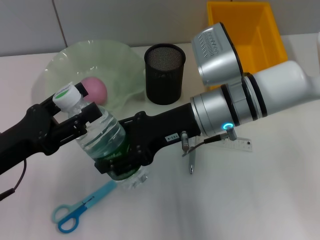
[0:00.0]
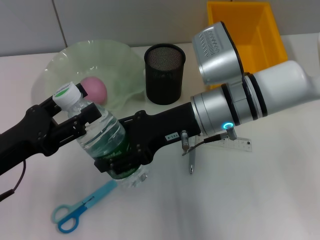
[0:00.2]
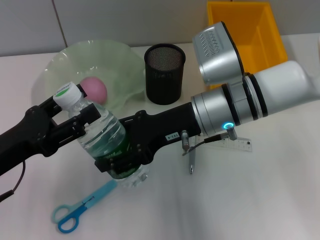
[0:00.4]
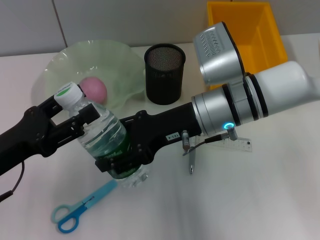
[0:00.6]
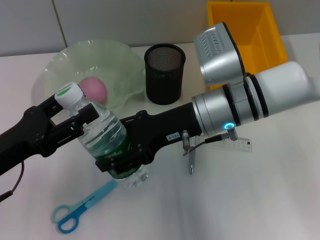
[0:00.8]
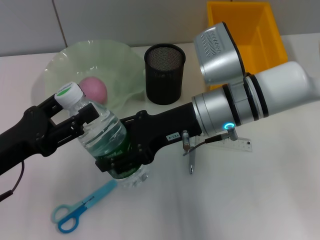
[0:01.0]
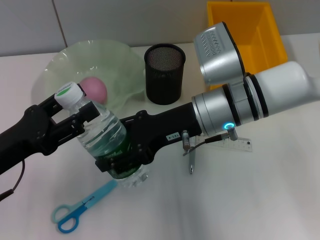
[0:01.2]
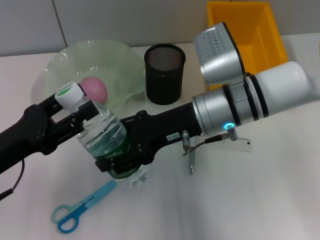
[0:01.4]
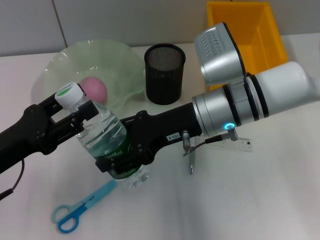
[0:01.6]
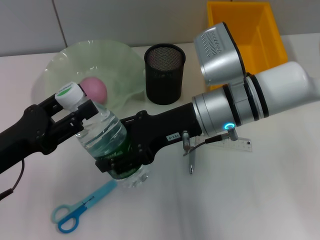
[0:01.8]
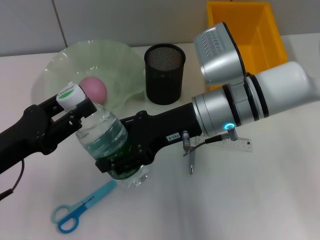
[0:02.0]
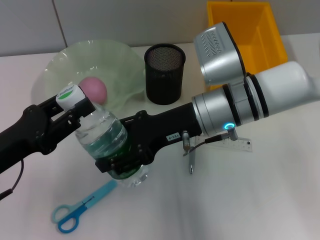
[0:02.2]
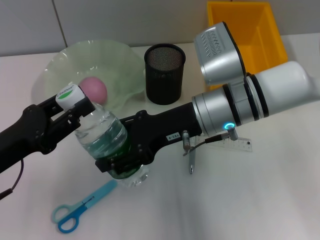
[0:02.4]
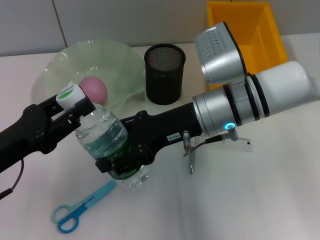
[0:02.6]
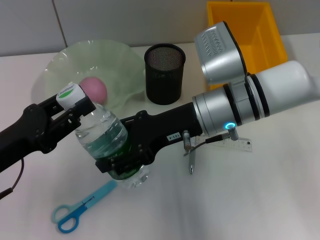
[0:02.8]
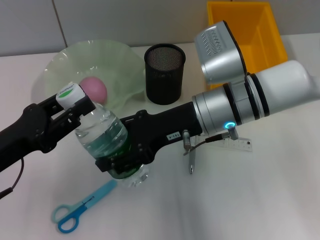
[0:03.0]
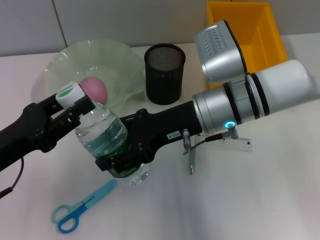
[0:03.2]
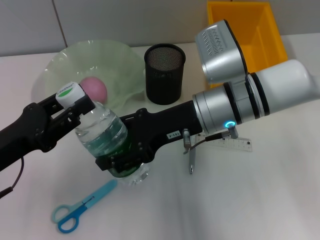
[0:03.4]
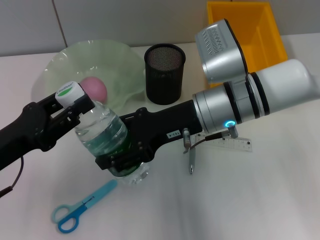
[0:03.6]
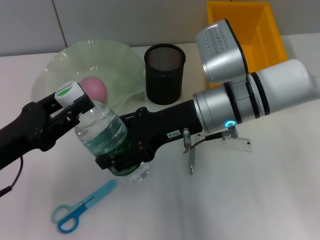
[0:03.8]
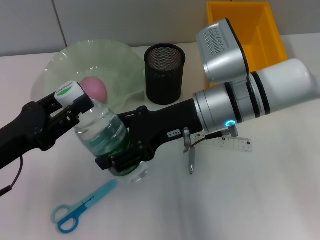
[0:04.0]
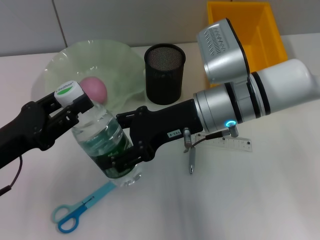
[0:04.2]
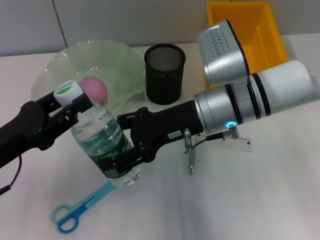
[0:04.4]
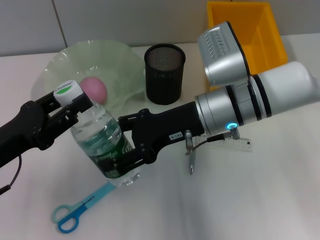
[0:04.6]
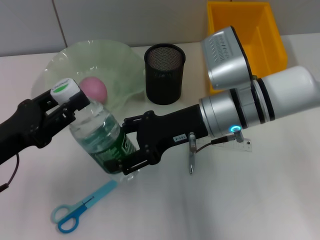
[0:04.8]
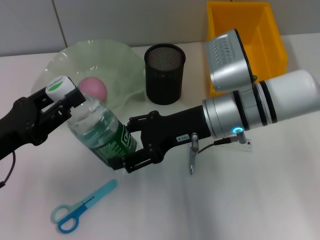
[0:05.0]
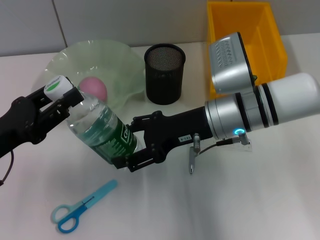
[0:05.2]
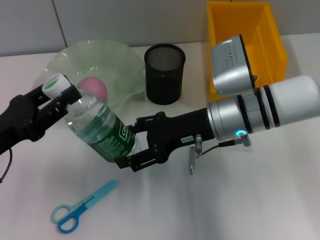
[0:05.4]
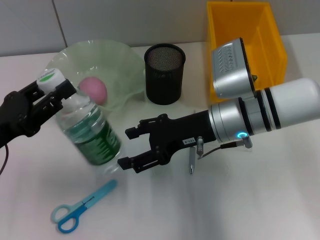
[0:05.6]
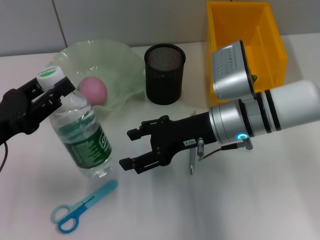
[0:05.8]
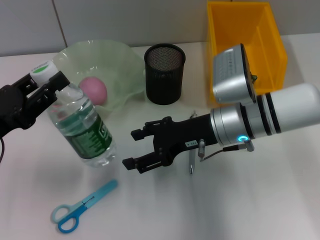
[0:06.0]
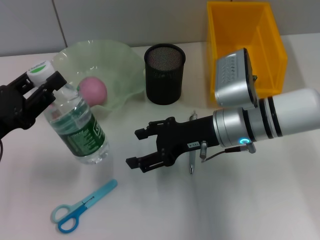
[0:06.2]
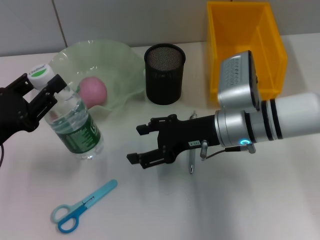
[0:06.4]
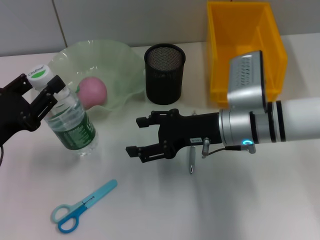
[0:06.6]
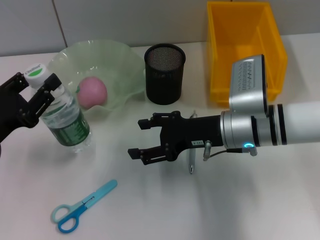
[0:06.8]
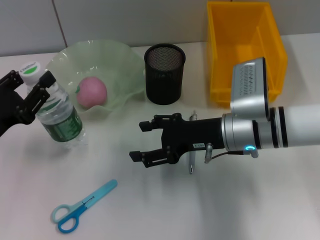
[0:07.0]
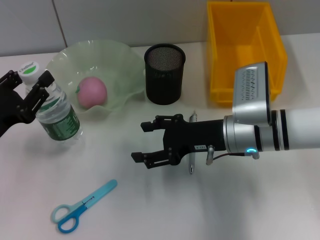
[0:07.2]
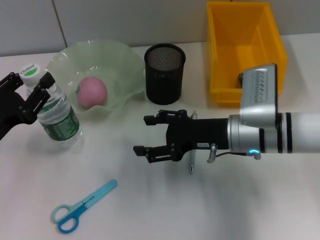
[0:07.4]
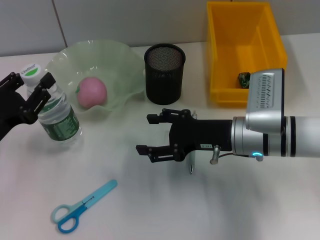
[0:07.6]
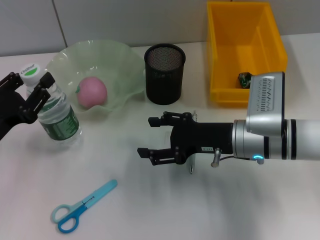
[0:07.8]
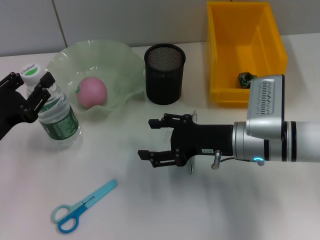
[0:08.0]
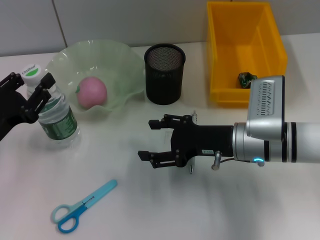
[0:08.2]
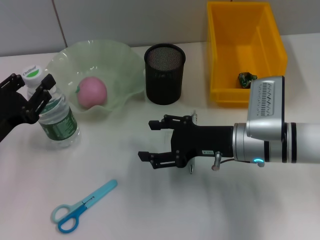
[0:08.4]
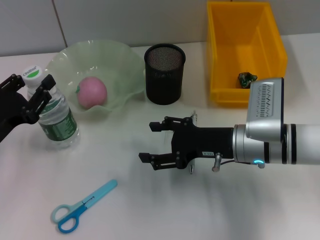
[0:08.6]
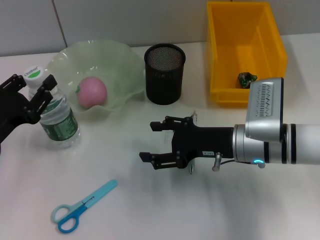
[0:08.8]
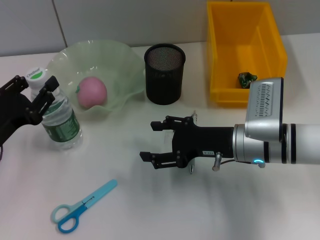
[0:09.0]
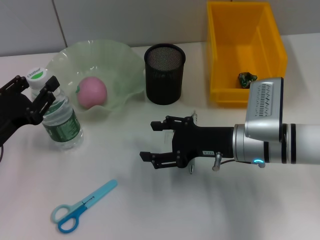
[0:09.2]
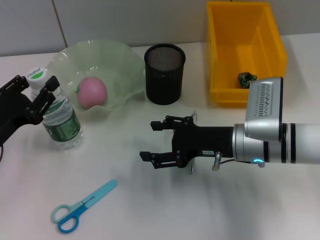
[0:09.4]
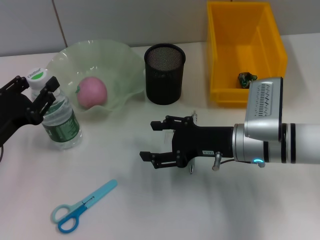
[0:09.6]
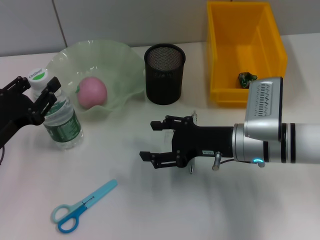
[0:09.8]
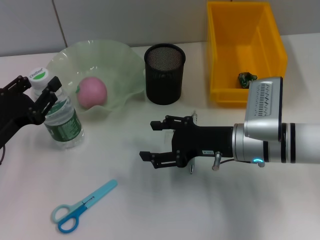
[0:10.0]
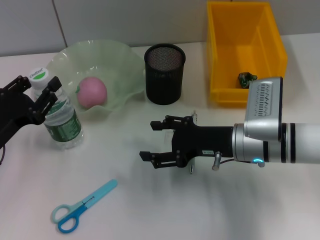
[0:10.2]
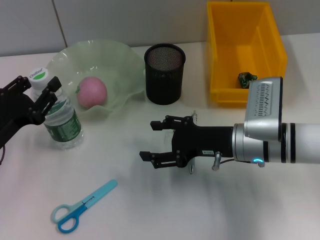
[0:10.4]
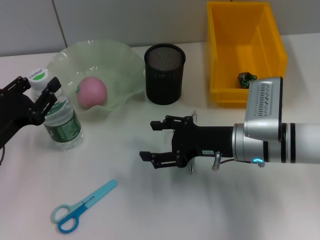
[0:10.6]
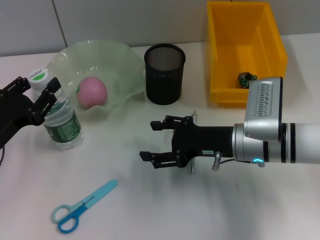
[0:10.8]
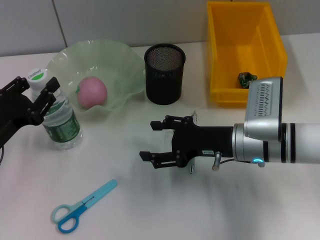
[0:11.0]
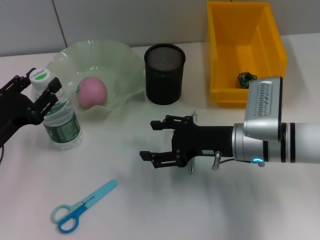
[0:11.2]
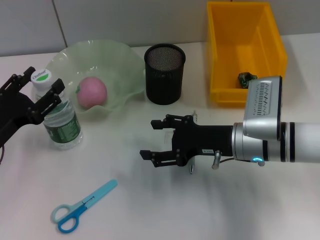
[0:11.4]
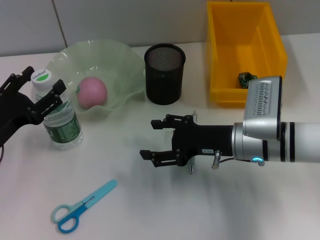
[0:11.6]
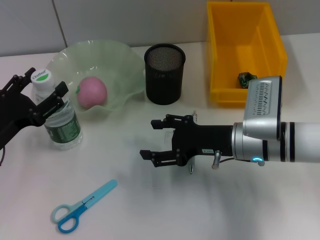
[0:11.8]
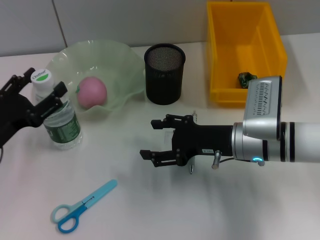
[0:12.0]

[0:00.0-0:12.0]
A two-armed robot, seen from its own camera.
Step, 0:00.0 to 0:05.8: Pass the water bottle from the right hand to the left hand.
0:00.0 to 0:01.6: Both grippers stay about where they are.
0:01.6 to 0:03.0: The left gripper closes.
0:03.0 to 0:04.4: Both grippers stay put.
0:07.6 to 0:10.4: Both grippers stay about where they are.
0:10.4 to 0:12.0: The left gripper opens up.

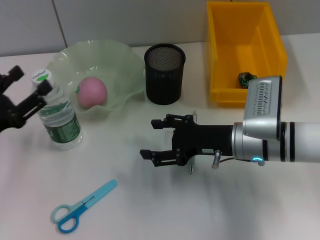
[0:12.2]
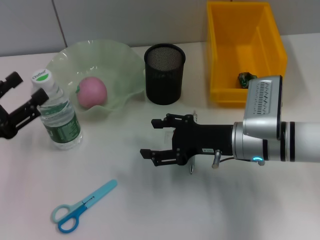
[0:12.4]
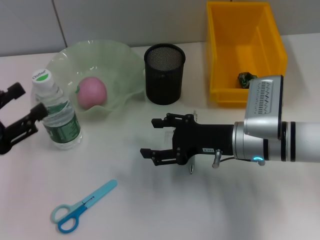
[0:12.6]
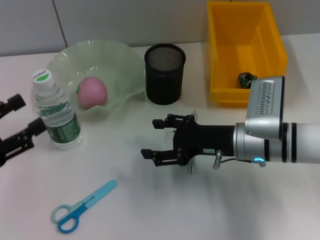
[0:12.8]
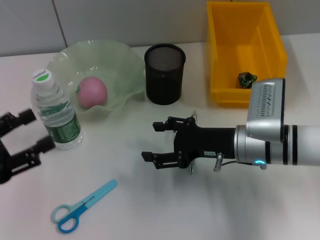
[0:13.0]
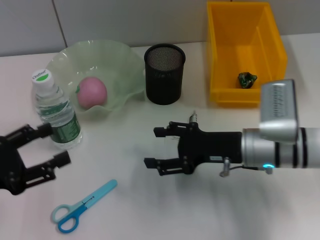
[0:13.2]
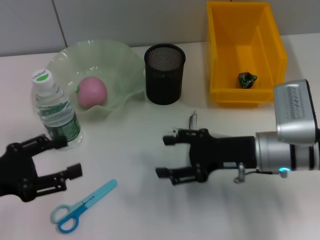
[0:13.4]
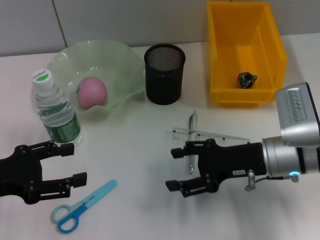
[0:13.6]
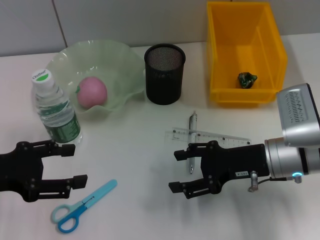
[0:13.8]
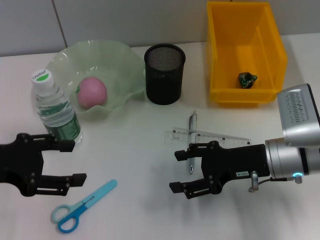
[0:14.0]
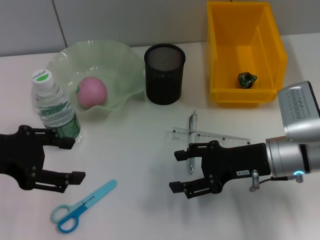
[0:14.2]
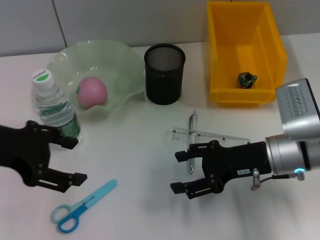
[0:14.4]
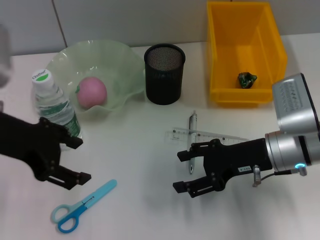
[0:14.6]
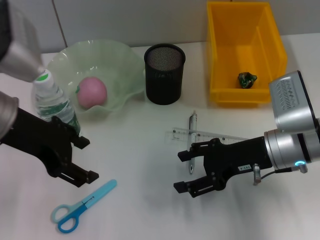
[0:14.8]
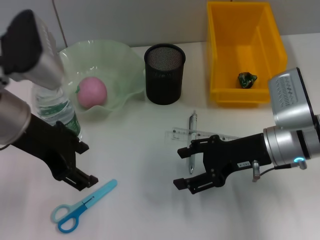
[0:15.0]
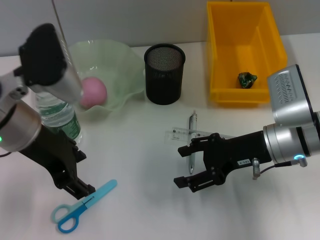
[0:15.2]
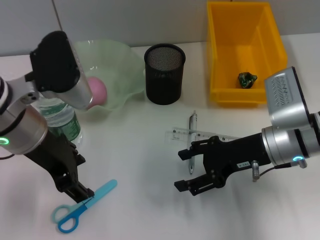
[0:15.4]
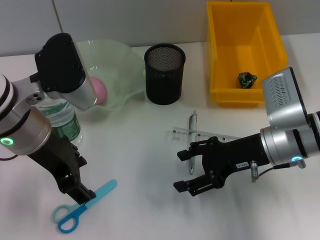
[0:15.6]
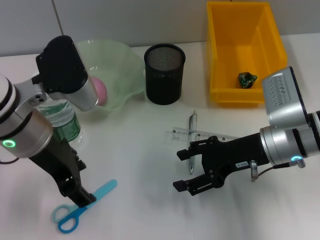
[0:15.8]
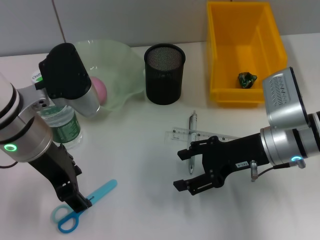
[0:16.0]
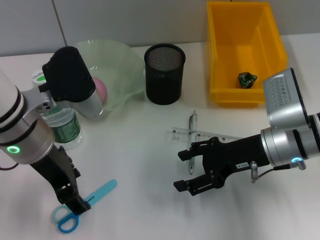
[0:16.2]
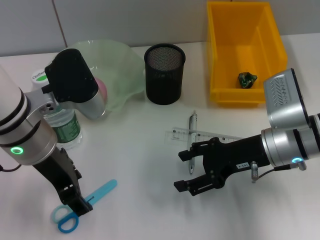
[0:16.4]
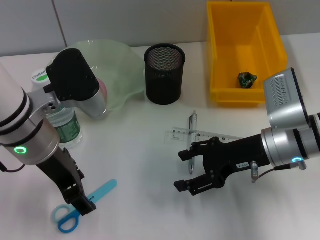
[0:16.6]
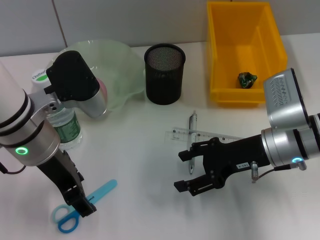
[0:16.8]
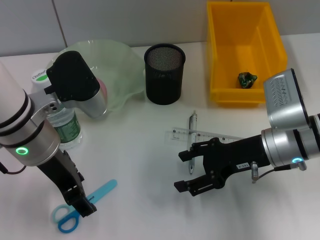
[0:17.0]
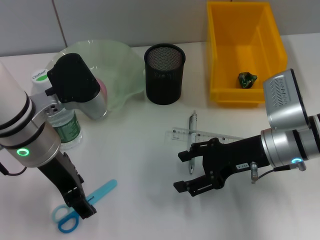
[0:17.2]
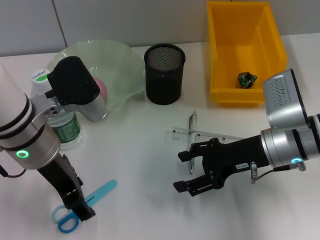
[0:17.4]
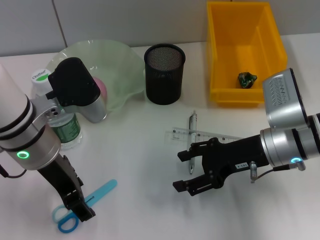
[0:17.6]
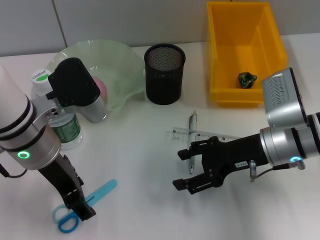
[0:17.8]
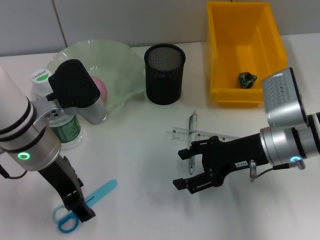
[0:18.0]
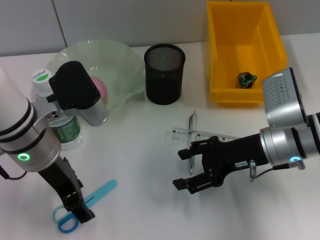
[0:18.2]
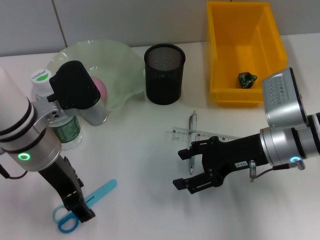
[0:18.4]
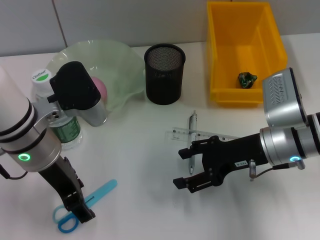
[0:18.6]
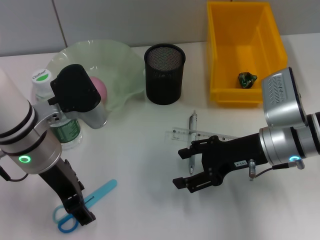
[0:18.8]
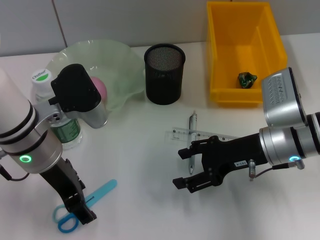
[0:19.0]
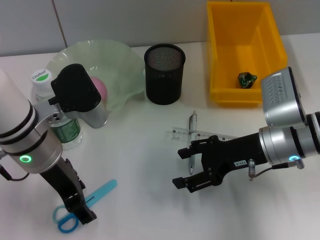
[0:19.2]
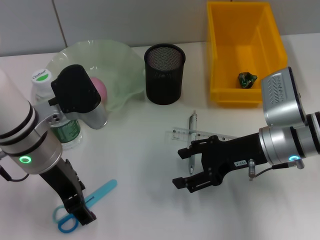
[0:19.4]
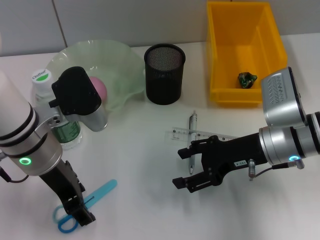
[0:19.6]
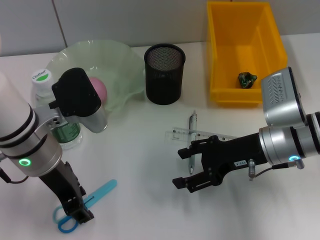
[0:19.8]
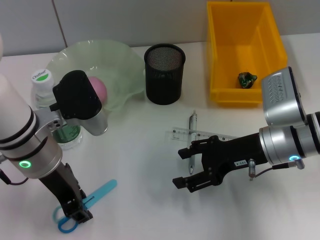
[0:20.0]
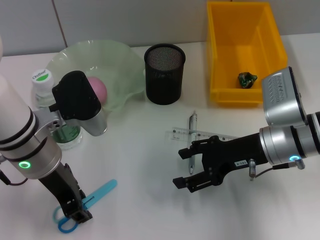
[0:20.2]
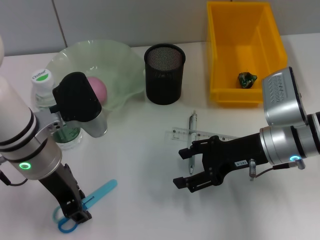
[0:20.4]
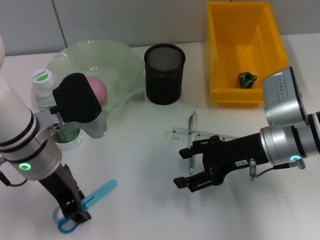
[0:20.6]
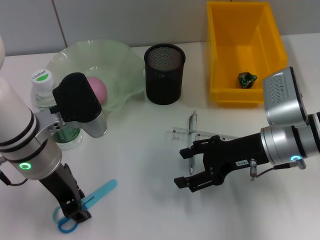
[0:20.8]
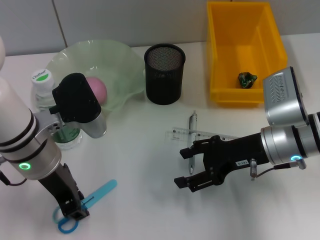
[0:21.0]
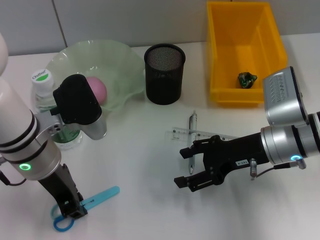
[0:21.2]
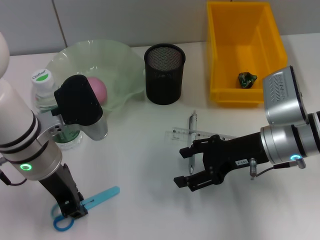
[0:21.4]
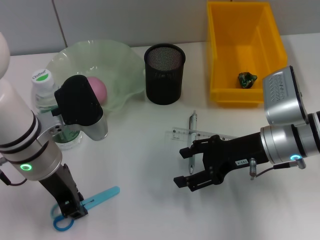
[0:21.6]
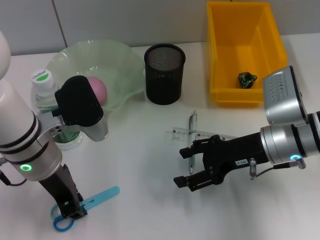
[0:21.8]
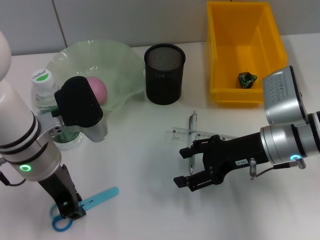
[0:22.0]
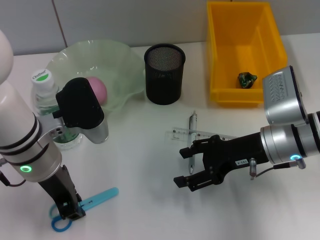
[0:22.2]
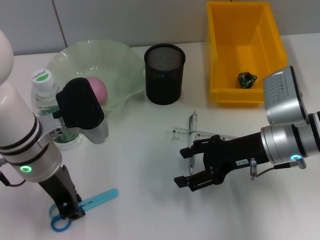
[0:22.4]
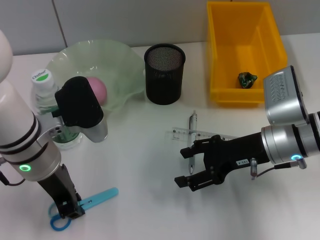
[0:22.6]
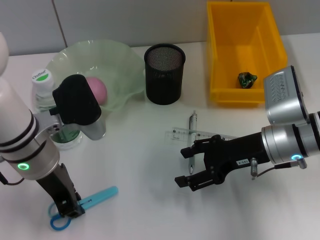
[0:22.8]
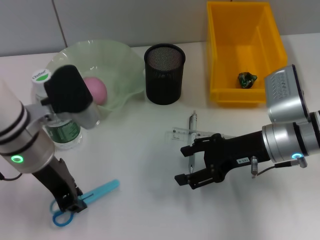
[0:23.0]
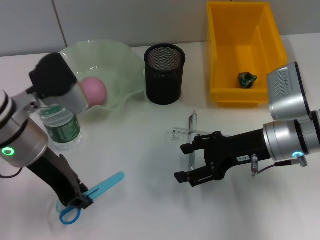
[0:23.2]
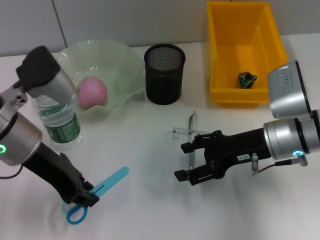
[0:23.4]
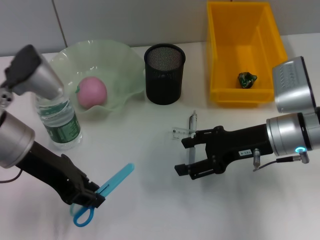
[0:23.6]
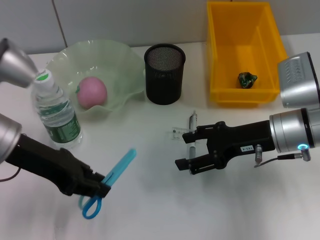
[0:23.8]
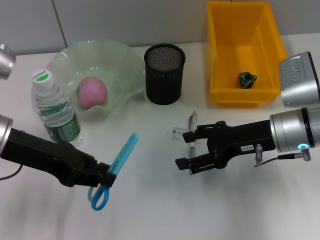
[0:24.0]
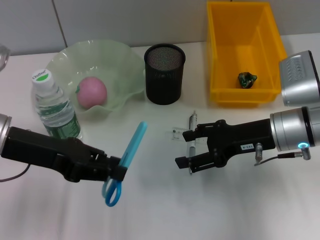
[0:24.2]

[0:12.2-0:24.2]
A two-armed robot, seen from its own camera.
Step, 0:12.6 to 0:23.0: Grab the blue scissors with the left hand.
0:12.2 to 0:13.8: The left gripper is displaced upward by about 5 cm.
0:13.8 to 0:15.2: The left gripper heads to the right, upward and forward, covering roughly 15 cm.
0:15.2 to 0:18.2: The grippers stay close to where they were, moving slightly.
0:18.2 to 0:19.8: Both grippers stay put.
0:19.8 to 0:21.2: The left gripper closes.
0:21.2 to 0:22.6: Both grippers stay put.
0:22.6 to 0:24.2: The left gripper moves to the left, some 5 cm.
